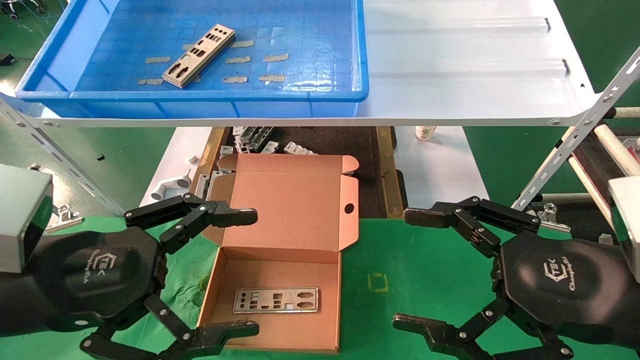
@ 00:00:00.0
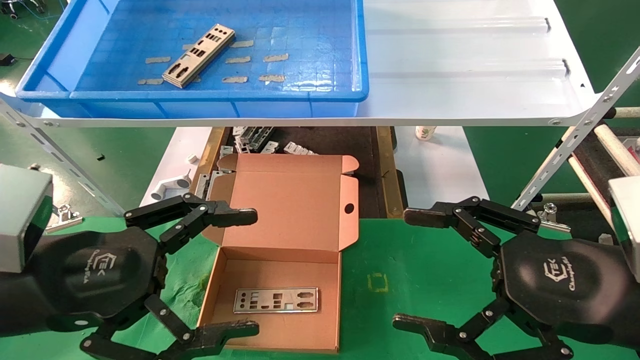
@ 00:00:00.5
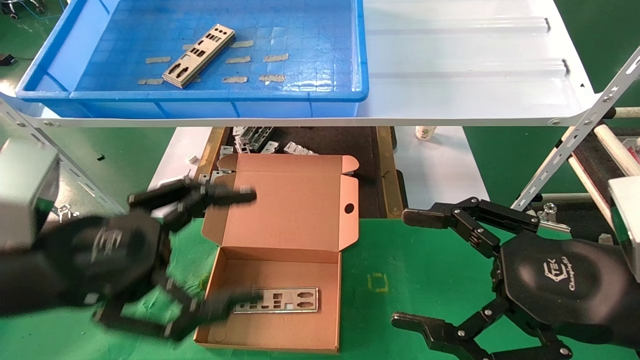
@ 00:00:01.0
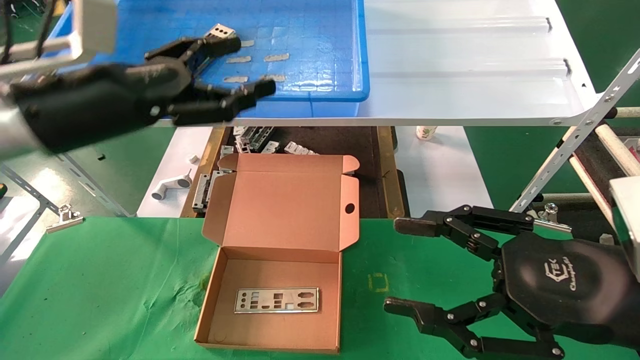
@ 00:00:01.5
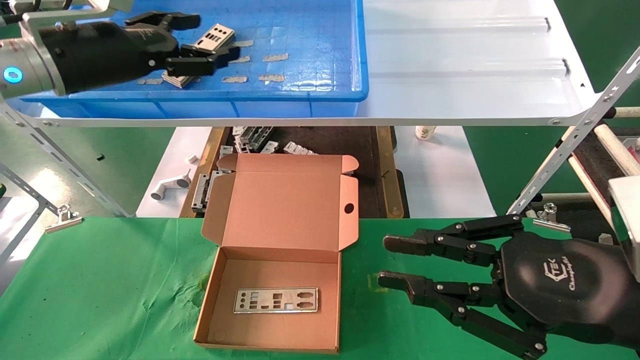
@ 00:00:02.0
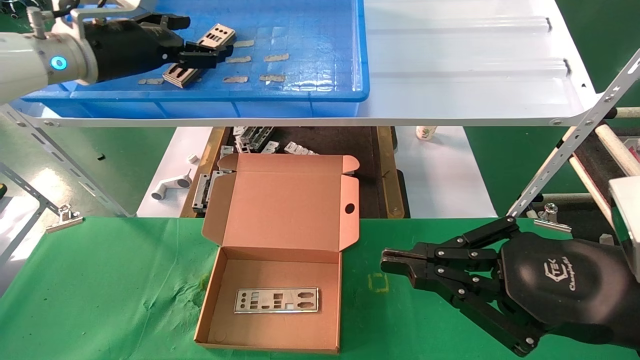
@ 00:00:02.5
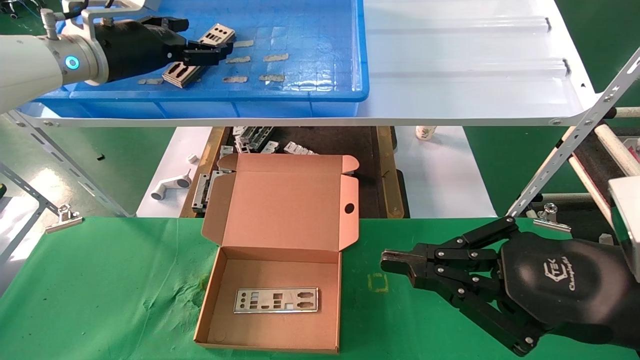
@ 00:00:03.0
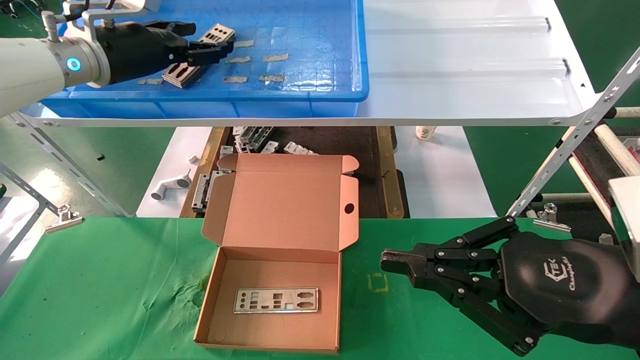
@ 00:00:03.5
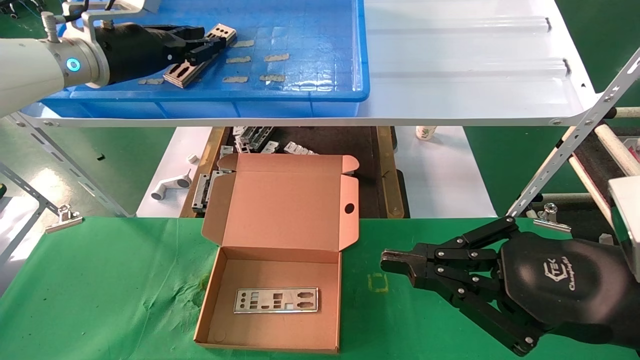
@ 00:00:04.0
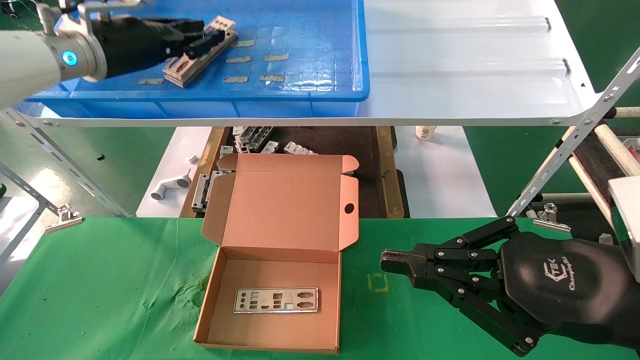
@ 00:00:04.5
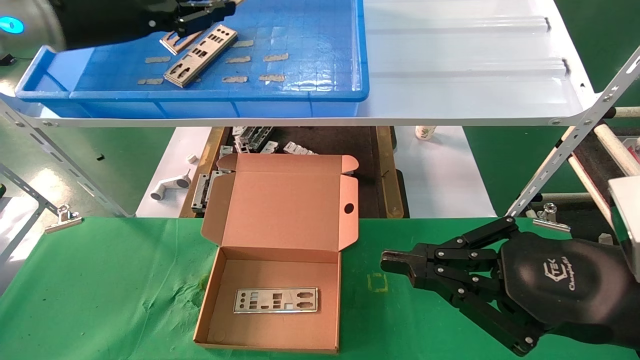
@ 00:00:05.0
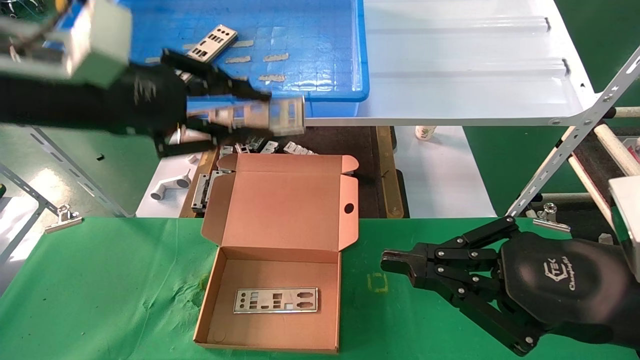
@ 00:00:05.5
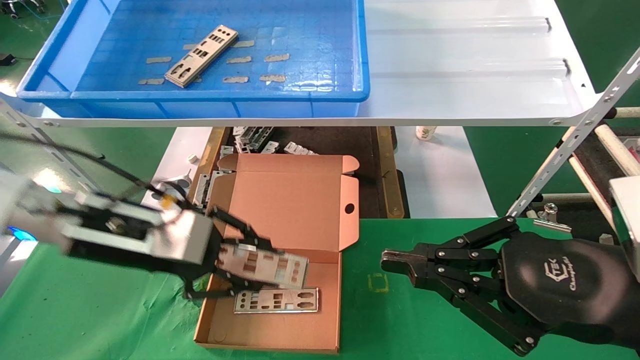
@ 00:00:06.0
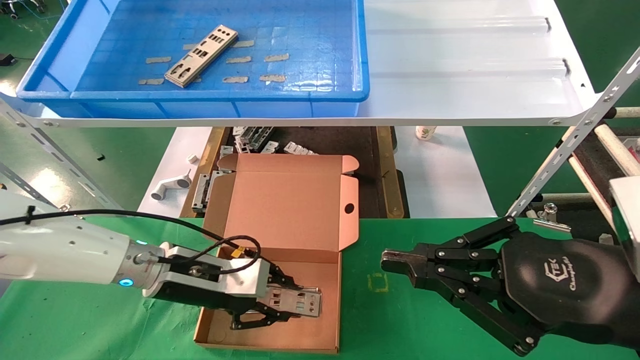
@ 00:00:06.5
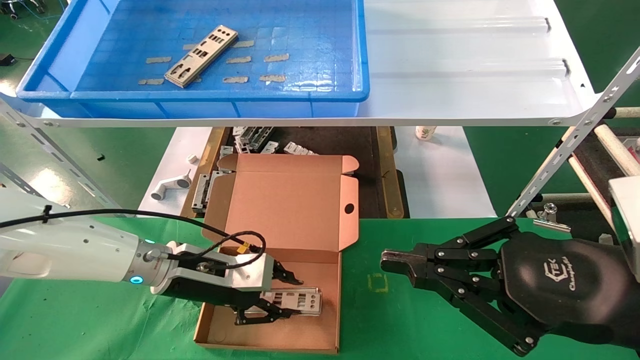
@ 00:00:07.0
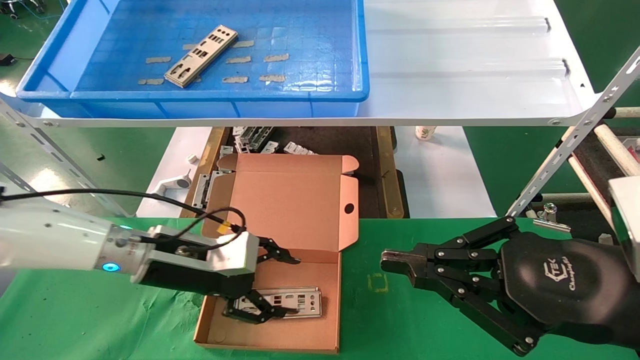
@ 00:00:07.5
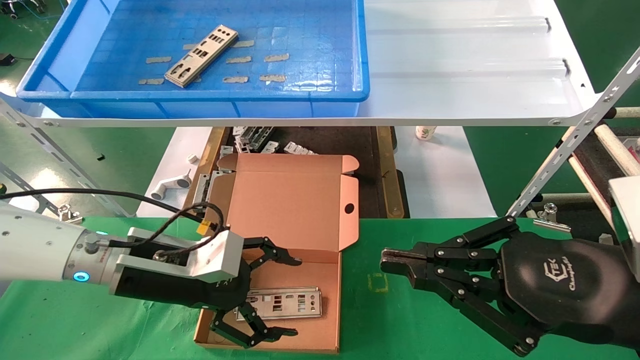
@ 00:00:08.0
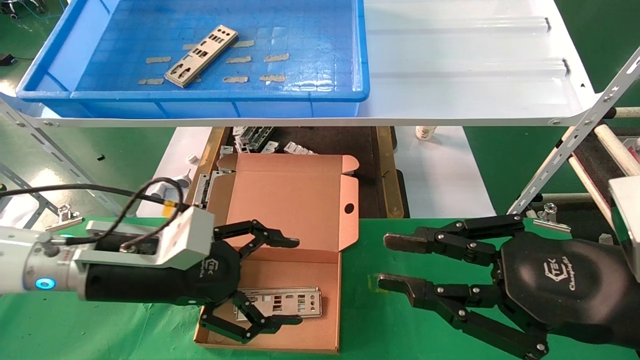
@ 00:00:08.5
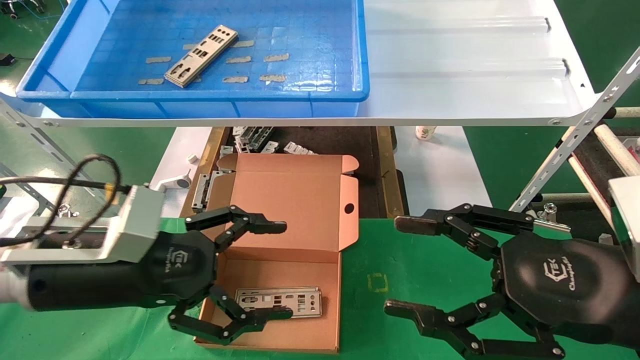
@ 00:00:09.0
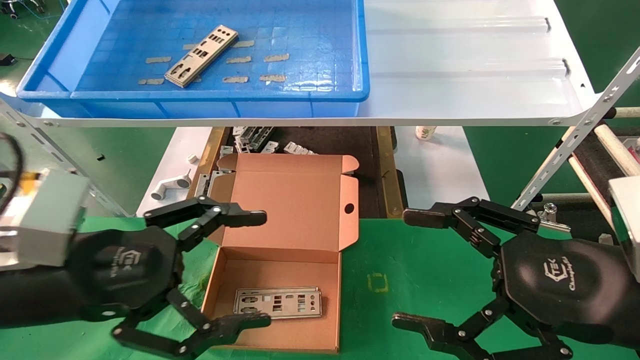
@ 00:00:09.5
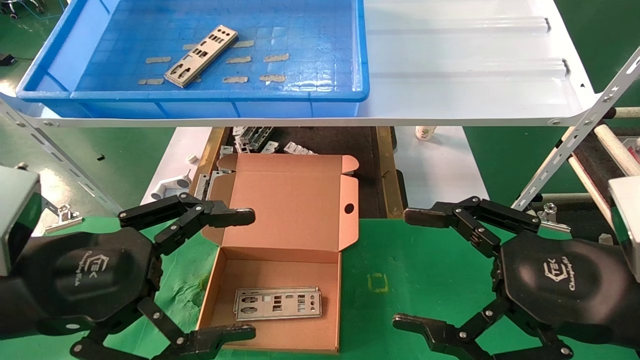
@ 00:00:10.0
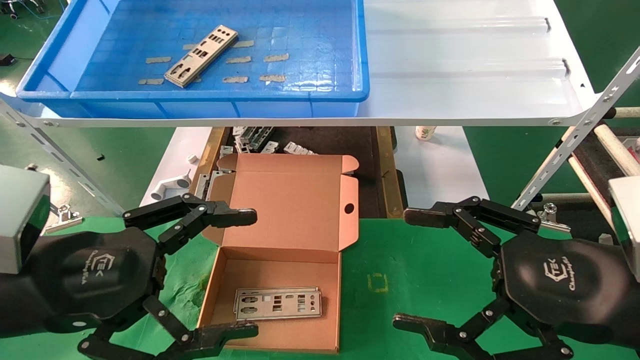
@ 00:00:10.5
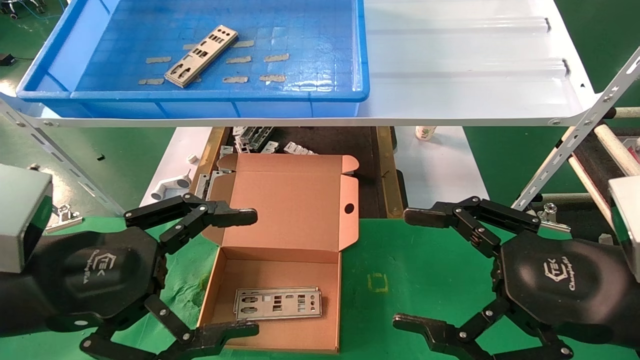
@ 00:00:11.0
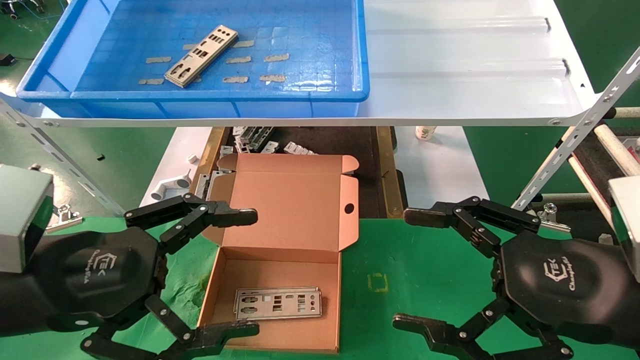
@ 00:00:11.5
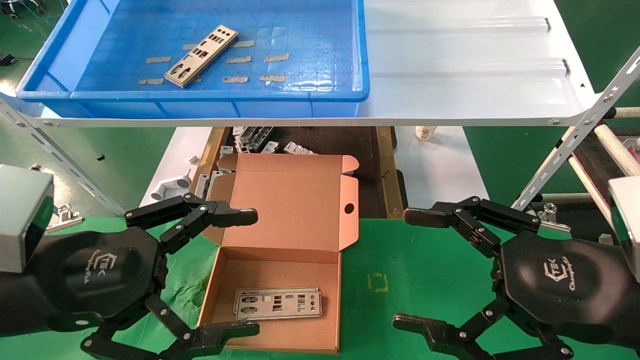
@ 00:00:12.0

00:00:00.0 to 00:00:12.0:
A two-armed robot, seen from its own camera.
Task of the whole recording: pick up the parts on the tray and put them in the cardboard box.
Step, 00:00:01.5 to 00:00:04.5: Pick up the IO bracket from the container box.
Step, 00:00:05.0 to 00:00:07.0: Place the IO bracket into the ingredient slot.
00:00:00.0 to 00:00:02.0: The left gripper heads forward and upward, covering approximately 25 cm; the right gripper closes its fingers.
00:00:02.0 to 00:00:04.0: The left gripper travels forward by some 5 cm, and closes its fingers. Meanwhile the right gripper closes up.
00:00:04.0 to 00:00:06.0: The left gripper shifts approximately 20 cm downward and backward.
00:00:06.0 to 00:00:08.0: The left gripper is displaced downward by roughly 5 cm, and opens.
00:00:08.0 to 00:00:10.0: The right gripper opens its fingers. The left gripper travels backward and upward by approximately 15 cm.
00:00:10.0 to 00:00:12.0: Both grippers stay put.

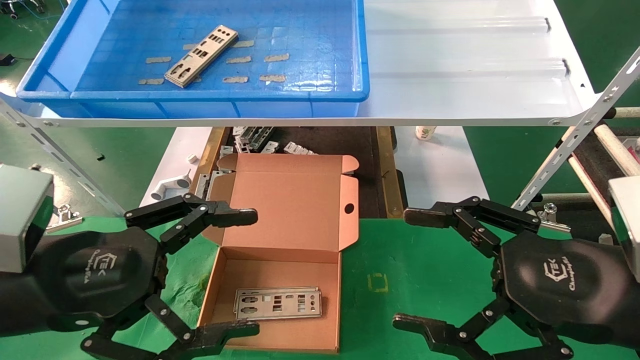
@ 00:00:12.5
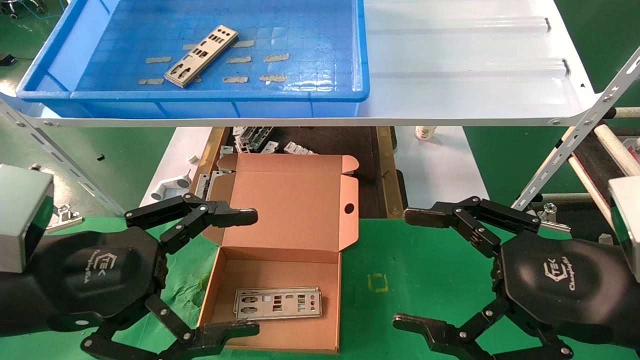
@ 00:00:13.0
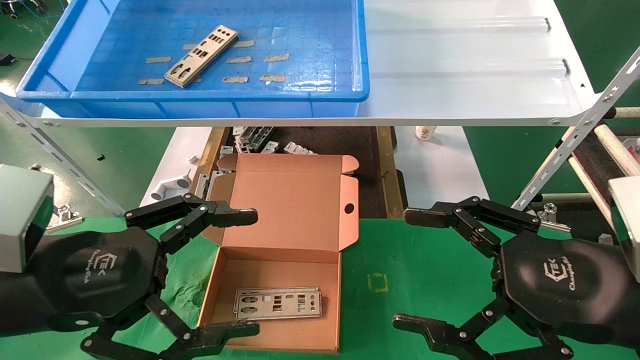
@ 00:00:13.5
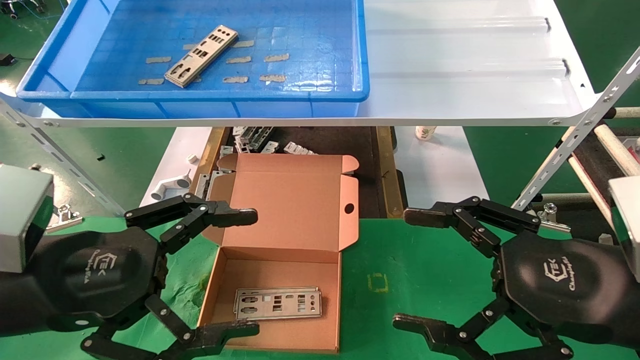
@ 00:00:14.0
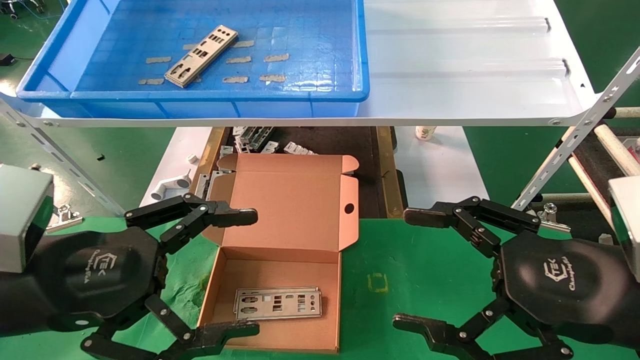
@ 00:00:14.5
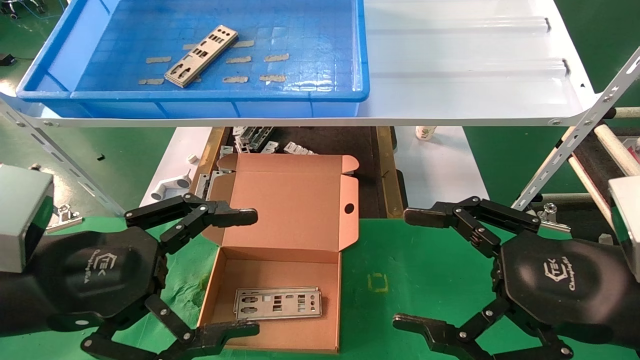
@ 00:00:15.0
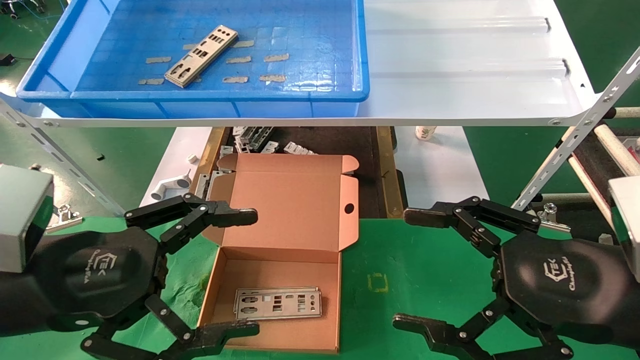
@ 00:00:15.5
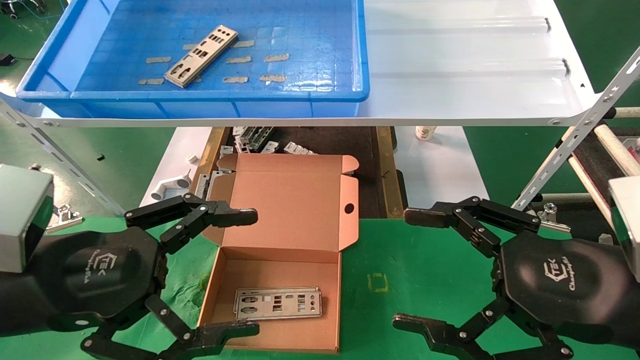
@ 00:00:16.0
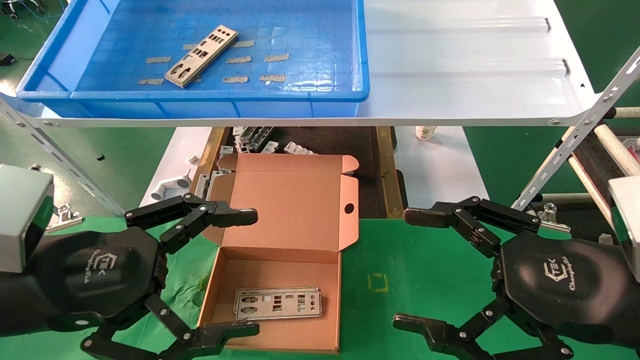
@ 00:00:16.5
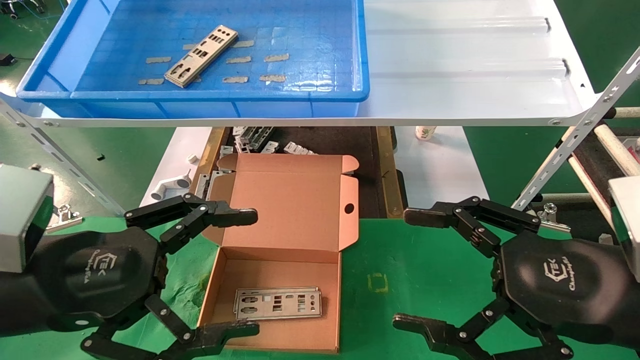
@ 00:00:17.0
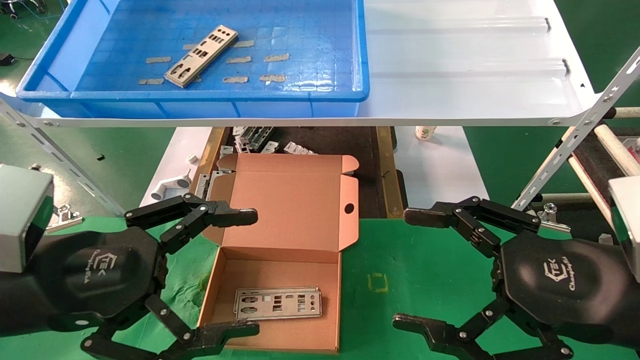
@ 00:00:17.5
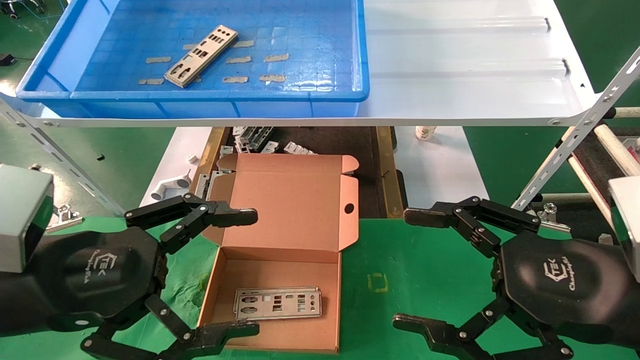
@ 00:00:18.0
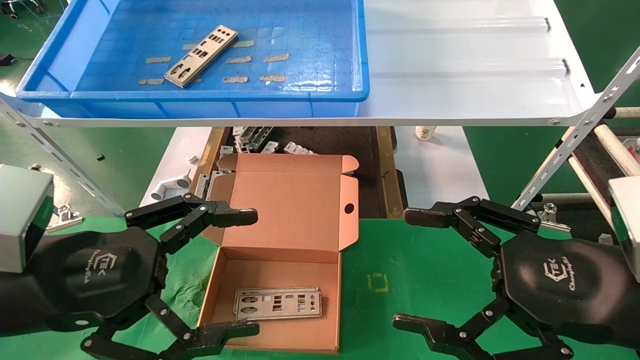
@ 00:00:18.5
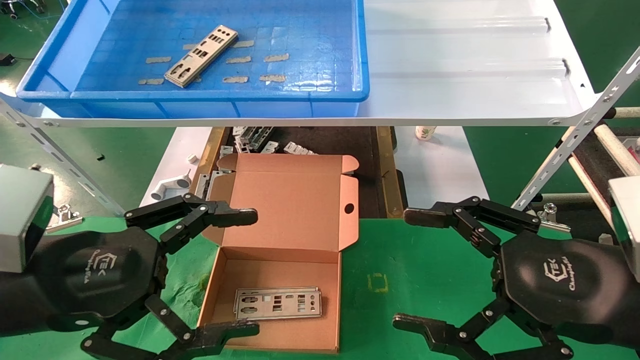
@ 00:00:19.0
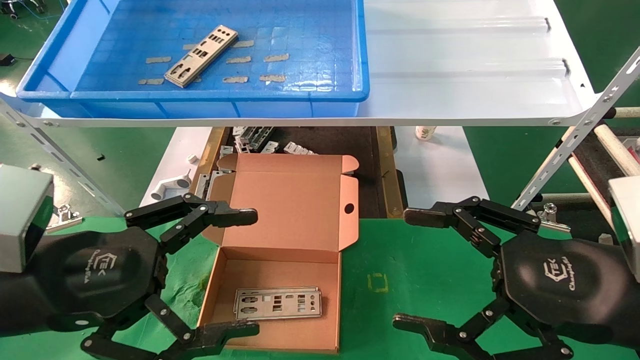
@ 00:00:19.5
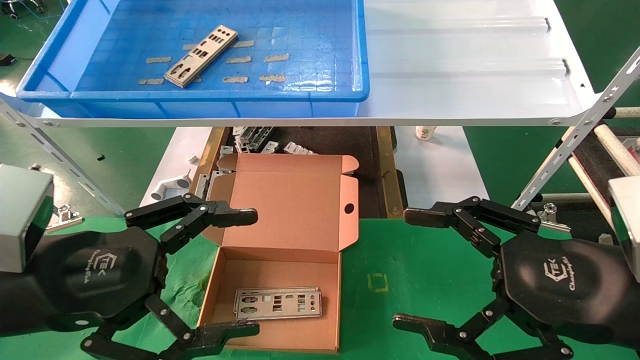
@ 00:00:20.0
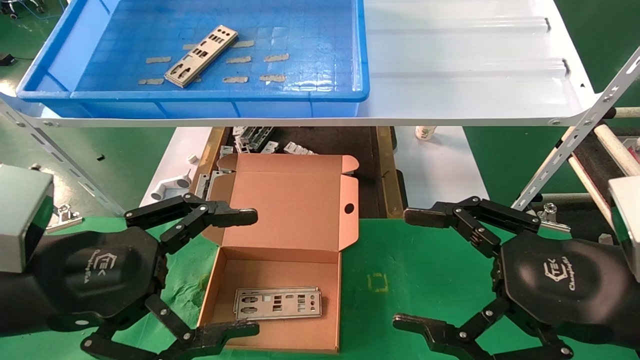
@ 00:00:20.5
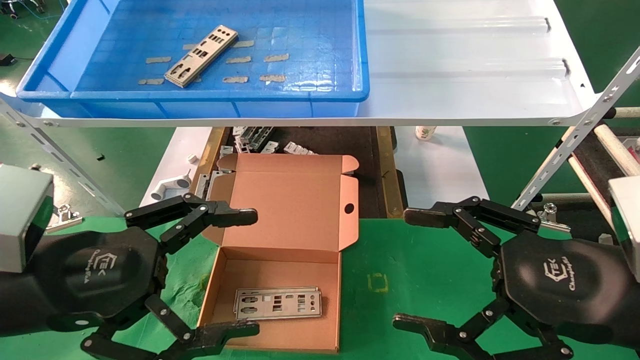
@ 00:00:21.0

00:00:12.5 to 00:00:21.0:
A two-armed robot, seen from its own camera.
Task of the whole recording: pick up the parts on the tray and put them in the cardboard box.
00:00:12.5 to 00:00:21.0: The two grippers keep their place.
